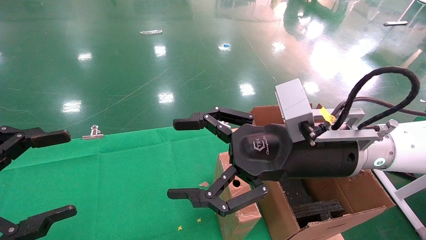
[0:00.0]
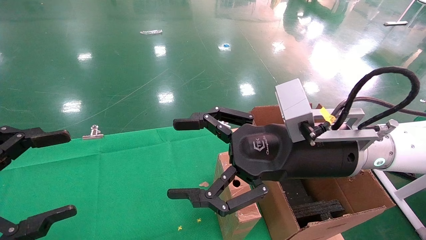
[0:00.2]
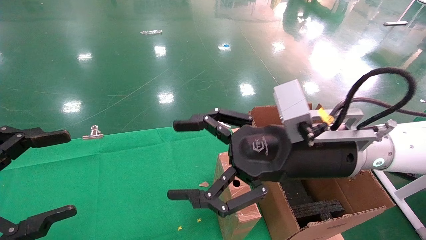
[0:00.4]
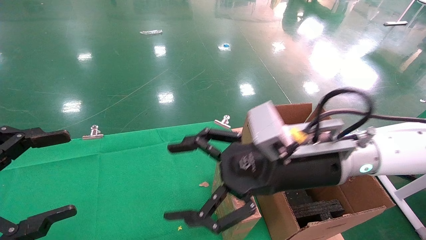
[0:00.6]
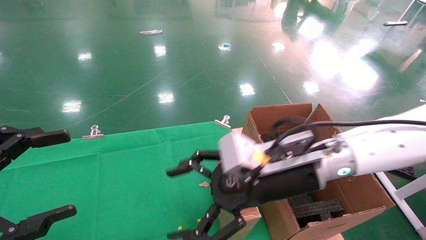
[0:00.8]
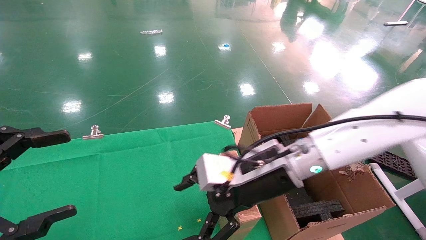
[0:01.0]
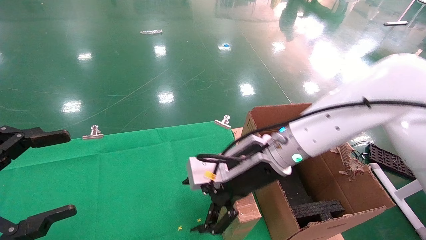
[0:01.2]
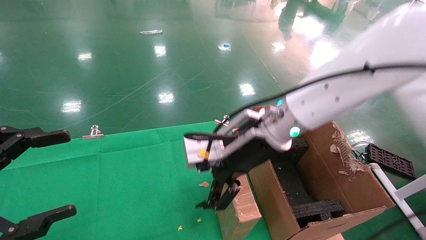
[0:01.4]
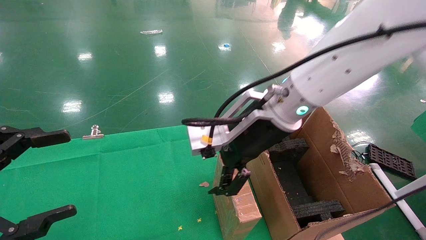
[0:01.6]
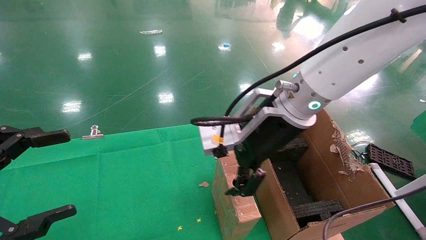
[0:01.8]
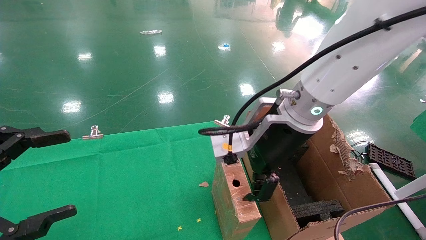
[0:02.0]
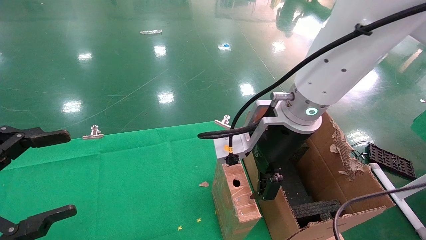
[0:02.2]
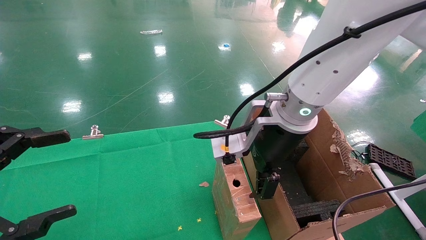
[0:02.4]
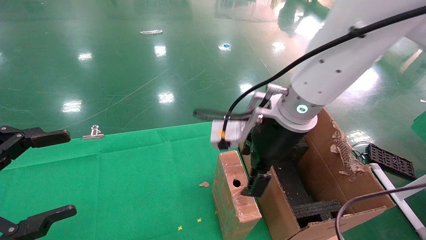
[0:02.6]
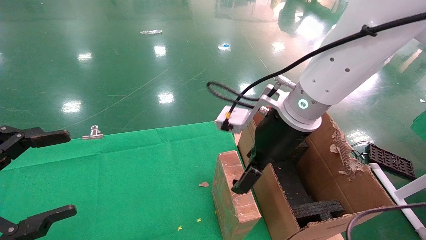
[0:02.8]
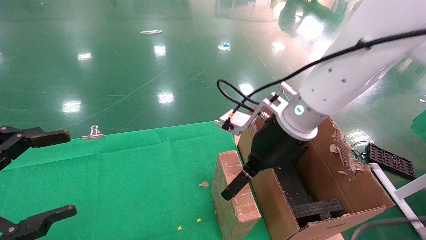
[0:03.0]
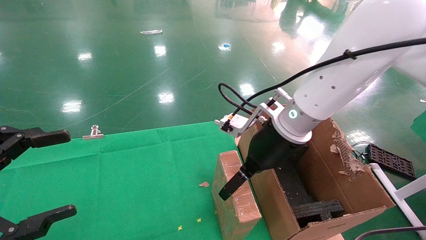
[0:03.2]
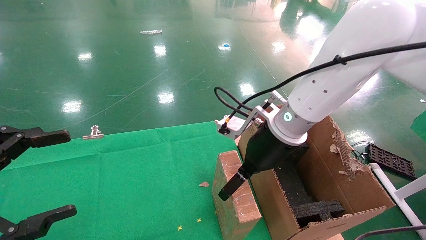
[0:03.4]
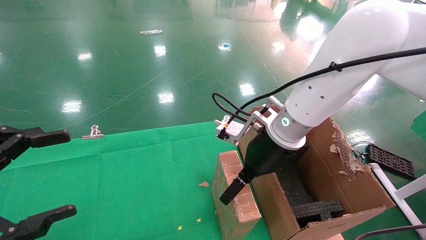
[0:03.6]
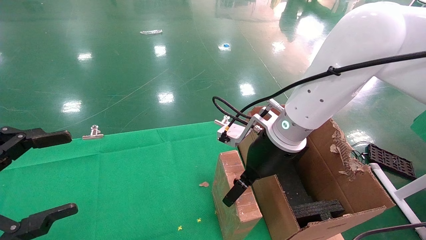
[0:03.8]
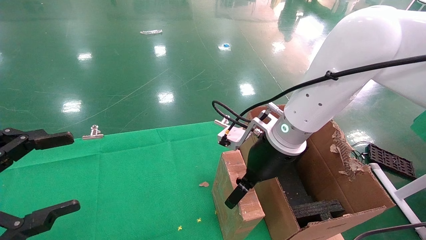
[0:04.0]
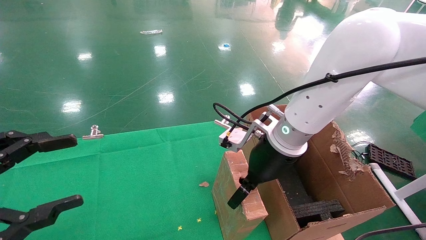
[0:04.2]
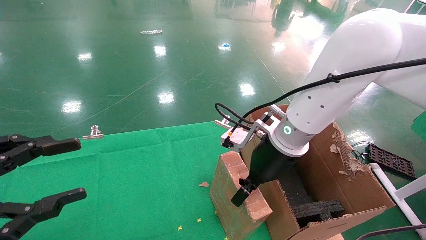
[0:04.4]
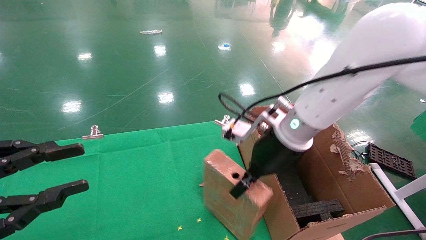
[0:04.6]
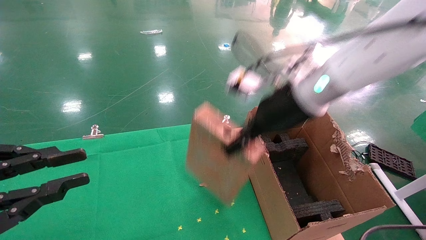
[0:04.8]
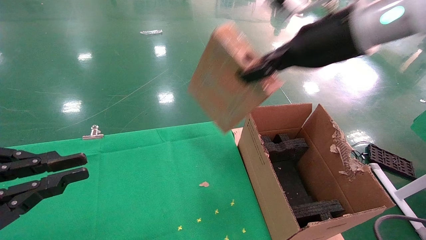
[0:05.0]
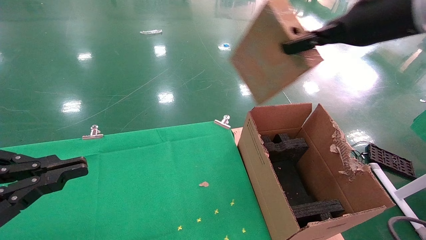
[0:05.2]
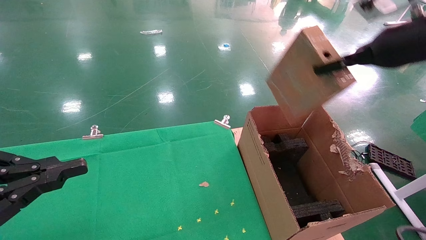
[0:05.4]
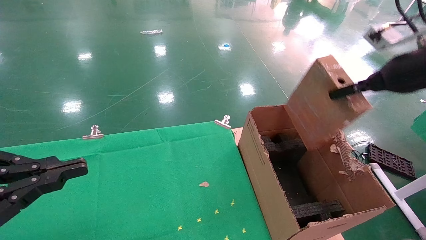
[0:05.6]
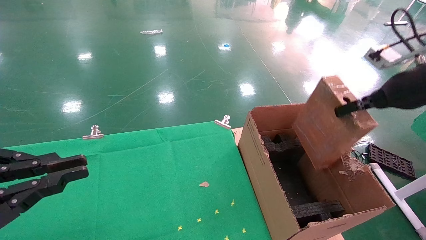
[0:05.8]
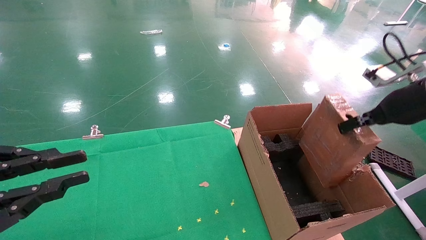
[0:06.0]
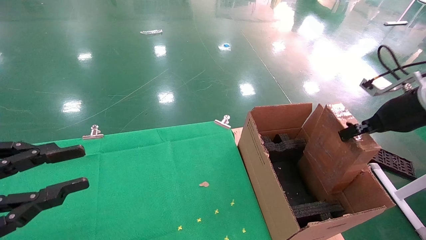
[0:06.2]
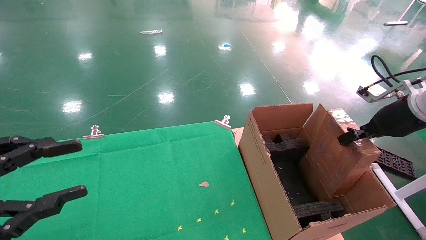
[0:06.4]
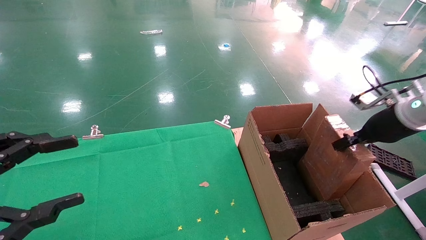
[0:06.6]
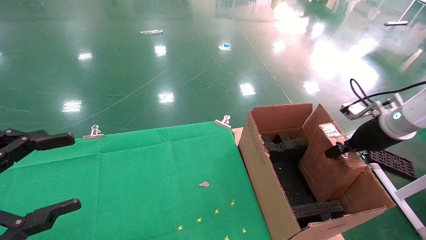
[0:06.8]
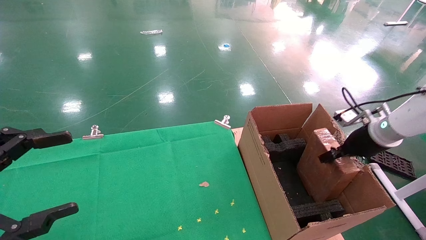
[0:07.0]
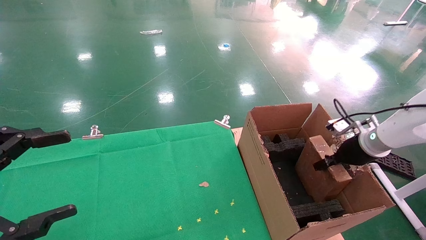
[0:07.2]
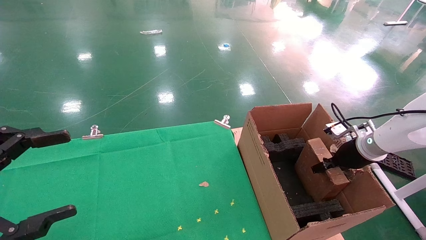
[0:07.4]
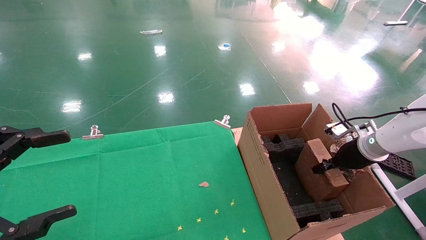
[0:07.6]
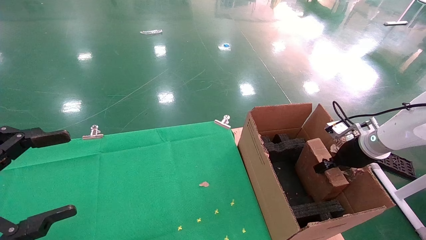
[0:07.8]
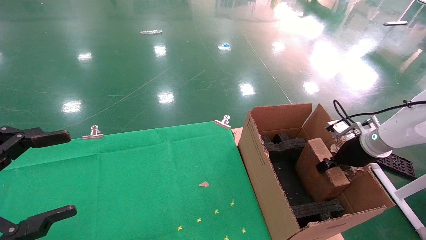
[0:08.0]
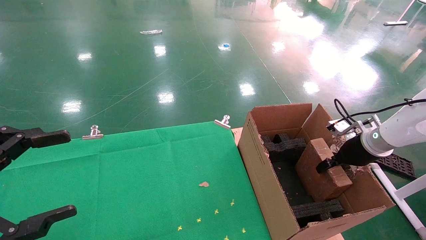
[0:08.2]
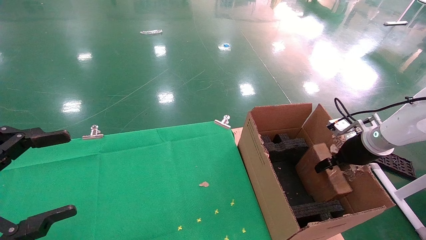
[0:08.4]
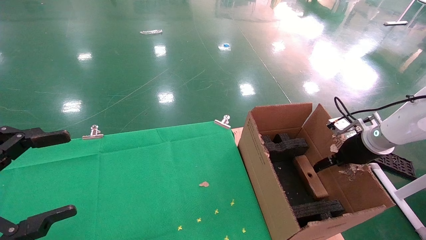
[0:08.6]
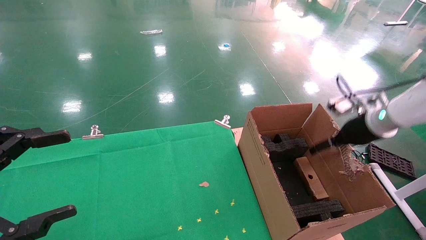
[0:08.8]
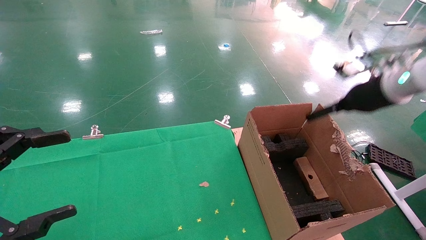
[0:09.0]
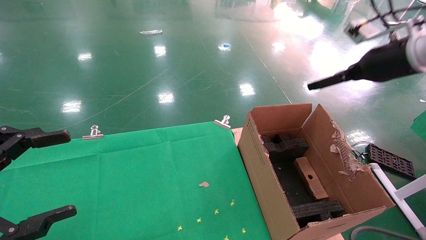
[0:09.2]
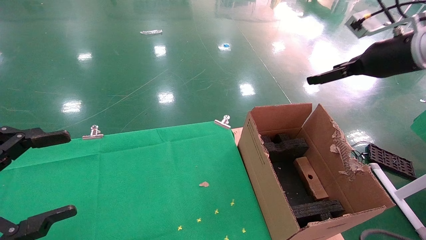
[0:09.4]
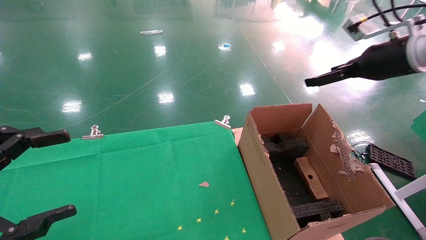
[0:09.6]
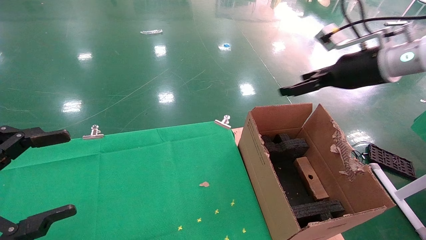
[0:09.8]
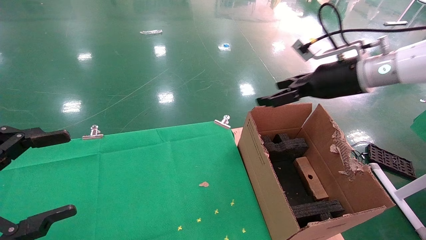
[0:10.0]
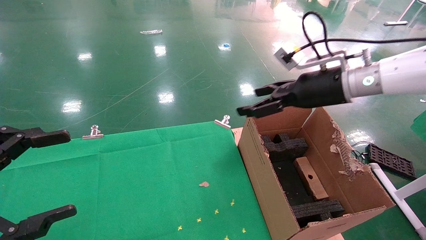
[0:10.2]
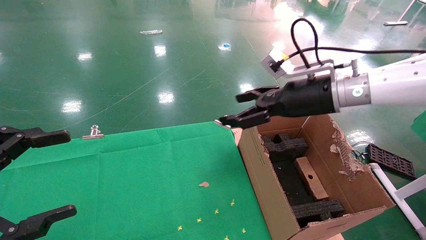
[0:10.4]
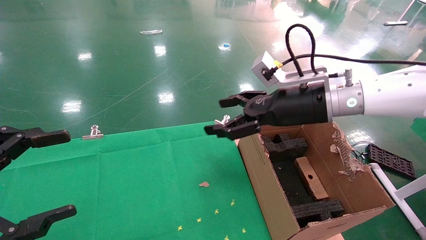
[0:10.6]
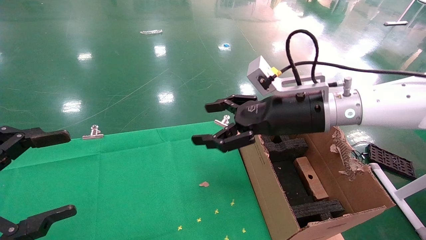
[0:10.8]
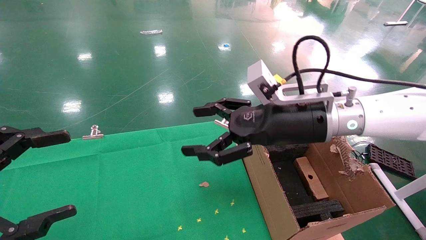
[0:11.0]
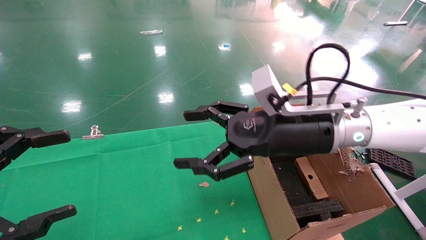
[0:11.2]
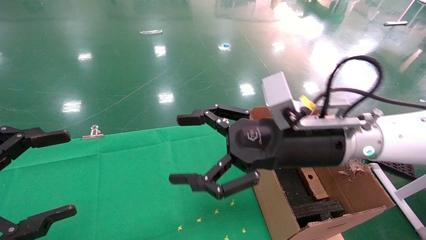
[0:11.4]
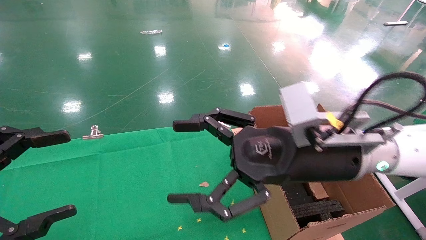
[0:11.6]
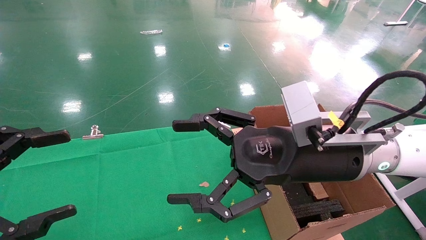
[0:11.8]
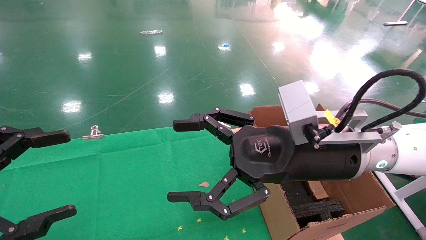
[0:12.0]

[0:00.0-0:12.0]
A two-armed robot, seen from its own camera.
Task of the whole recording: using a robotic arm to pick up a cardboard box and palace it the carton.
Step, 0.8 to 4.6 s: Pick up the mouse and the power cord paper box.
Step, 4.8 to 8.8 s: Place the mouse and the power cord paper box into the container.
0.0 to 1.6 s: The right gripper moves forward and to the left, some 10 cm.
3.0 to 4.4 s: The right gripper closes its fingers.
4.4 to 6.0 s: The left gripper closes its fingers. The right gripper travels to the right by roughly 25 cm, and closes.
6.0 to 7.6 s: The right gripper goes roughly 20 cm downward and forward. Meanwhile the left gripper opens its fingers.
7.6 to 9.0 s: The right gripper is displaced upward by some 15 cm, and opens up.
9.0 to 10.4 s: The right gripper heads to the left, covering about 15 cm.
10.4 to 12.0 s: The right gripper goes some 15 cm backward and to the left.

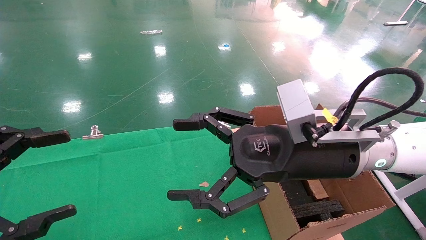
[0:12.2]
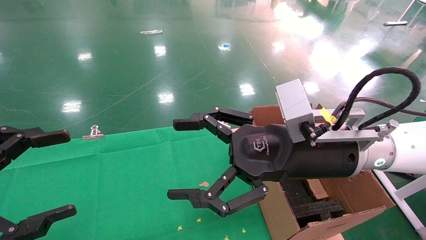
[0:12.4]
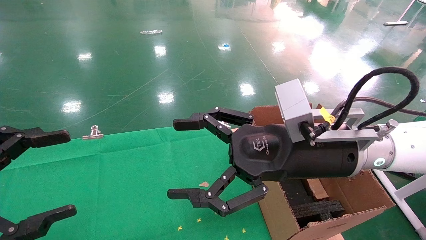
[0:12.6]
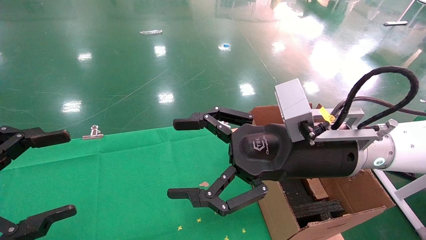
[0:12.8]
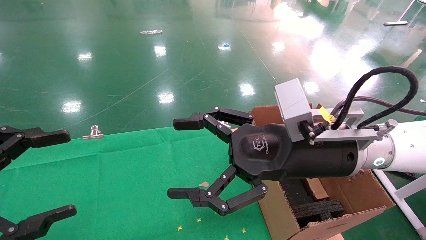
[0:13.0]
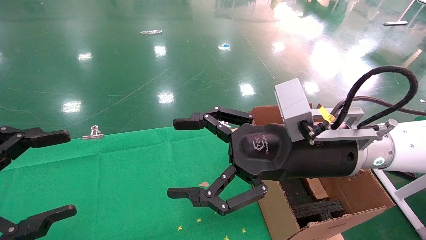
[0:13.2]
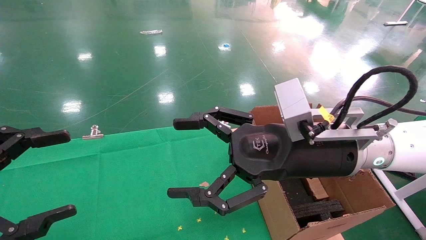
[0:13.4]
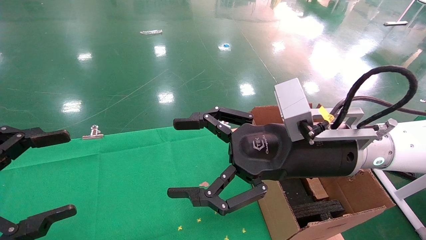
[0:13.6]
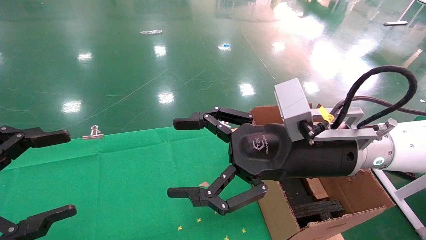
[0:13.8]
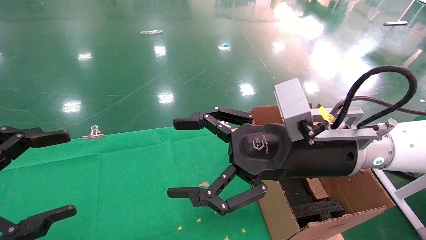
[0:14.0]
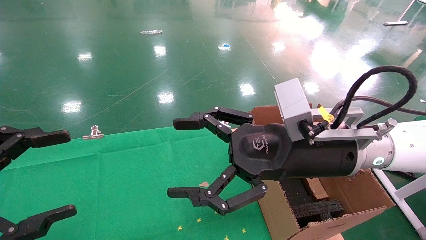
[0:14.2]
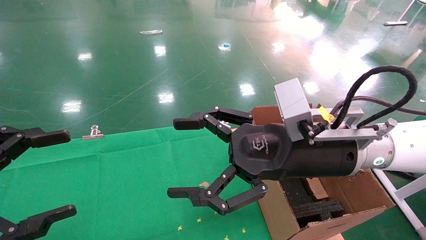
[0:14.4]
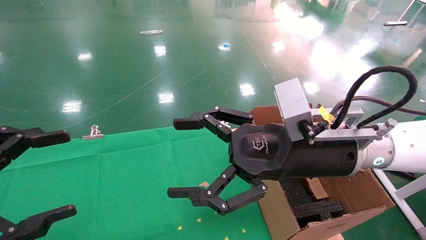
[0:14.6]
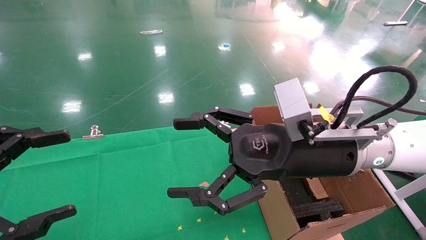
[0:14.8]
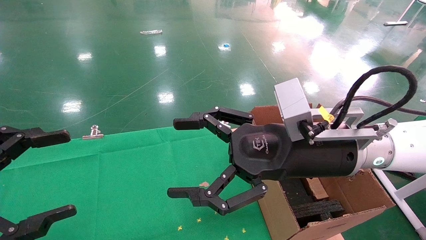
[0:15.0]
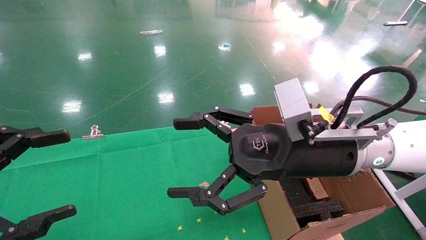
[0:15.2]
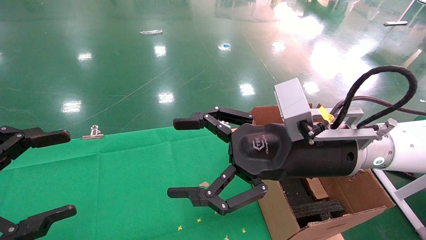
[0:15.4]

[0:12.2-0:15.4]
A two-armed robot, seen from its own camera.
Task of the whole recording: using a robotic arm to pick up a cardboard box and palace it the carton.
12.2 to 15.4 s: Neither gripper changes place.

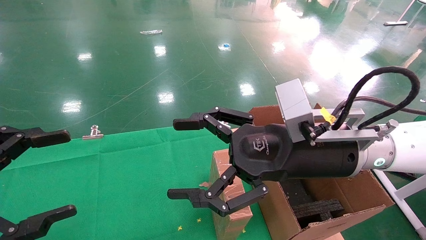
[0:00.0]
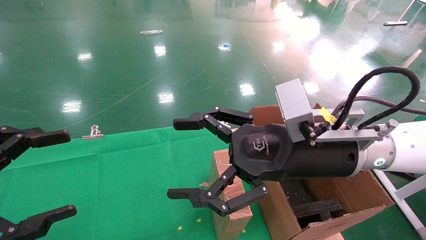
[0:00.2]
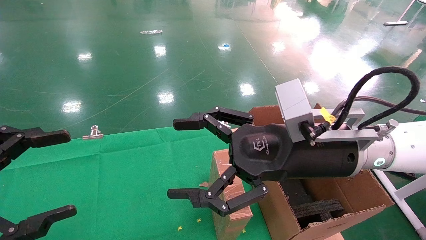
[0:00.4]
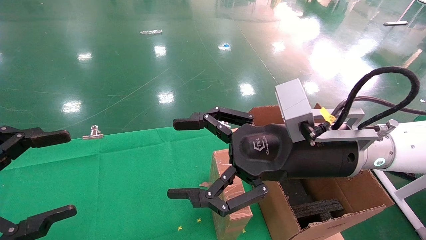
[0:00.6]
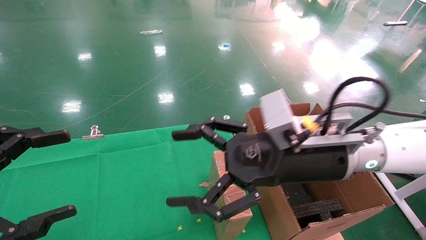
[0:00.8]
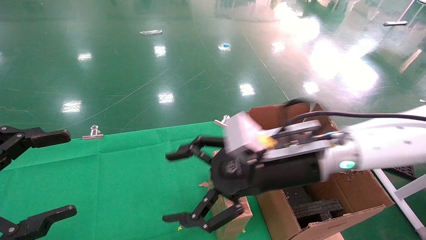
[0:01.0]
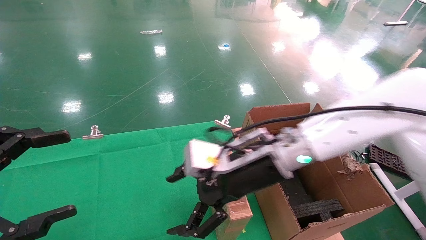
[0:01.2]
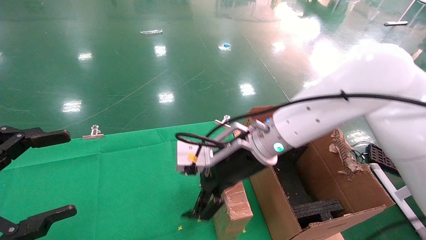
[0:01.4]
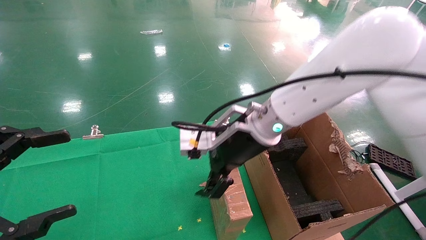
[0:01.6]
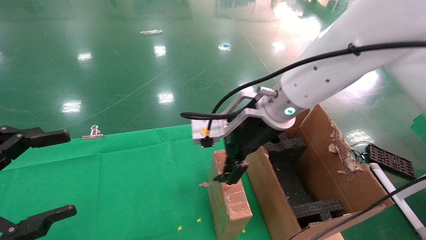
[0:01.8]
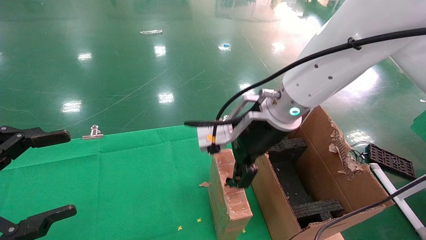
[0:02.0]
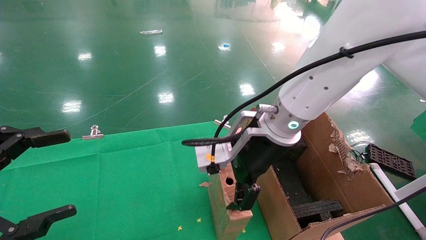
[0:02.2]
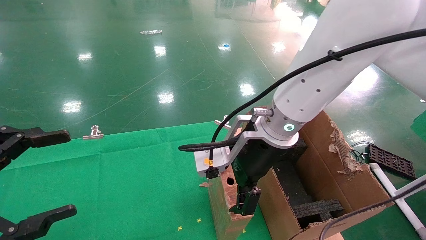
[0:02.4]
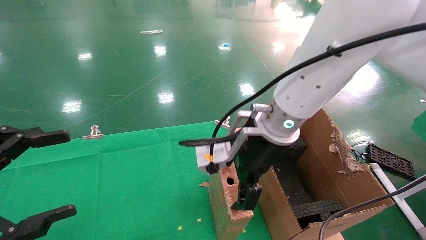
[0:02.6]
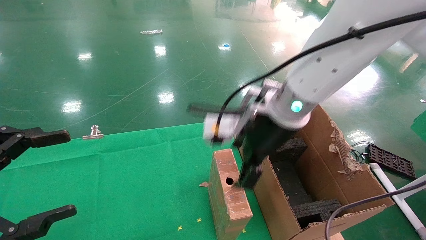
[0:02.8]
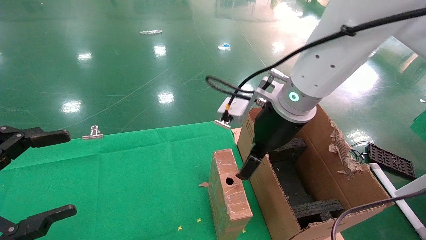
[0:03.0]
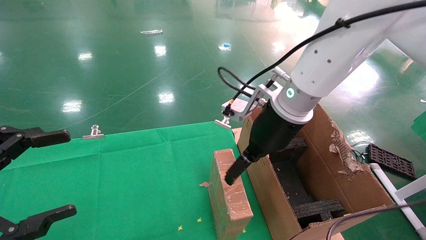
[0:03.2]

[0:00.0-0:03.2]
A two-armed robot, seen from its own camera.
Task of the whole recording: using a robotic arm to pick up a cardboard box and palace it the carton.
0.0 to 1.6 s: The right gripper moves forward and to the left, approximately 10 cm.
1.6 to 3.2 s: The right gripper changes place by roughly 5 cm.
